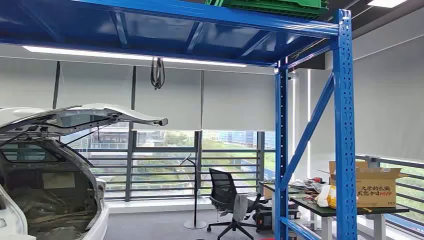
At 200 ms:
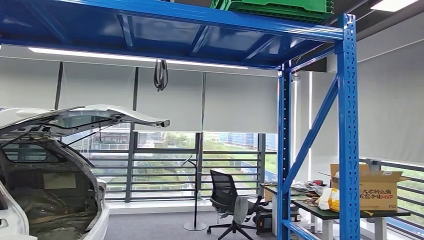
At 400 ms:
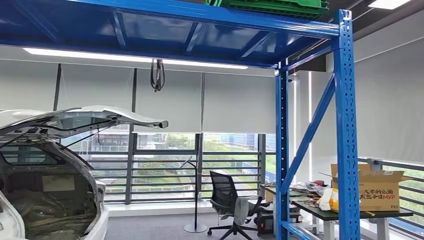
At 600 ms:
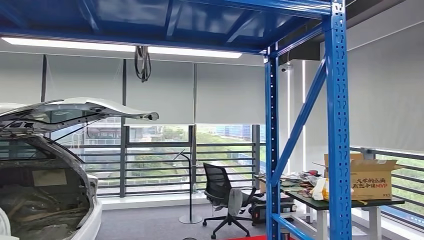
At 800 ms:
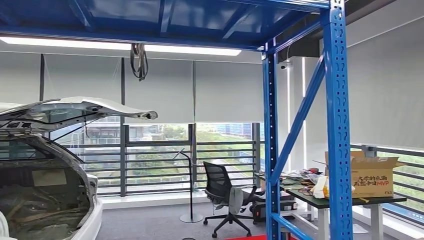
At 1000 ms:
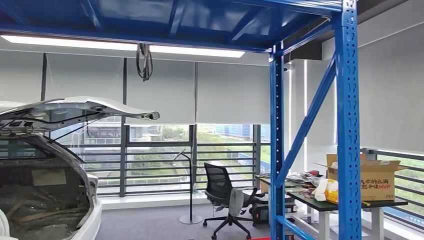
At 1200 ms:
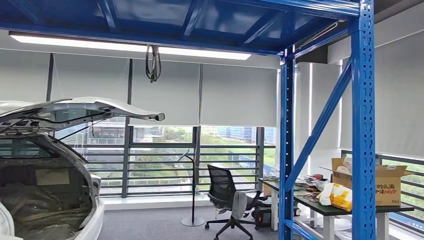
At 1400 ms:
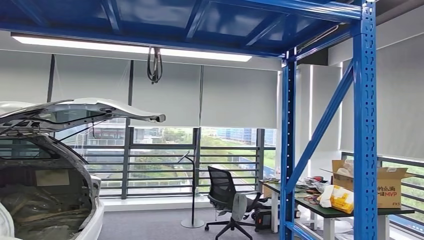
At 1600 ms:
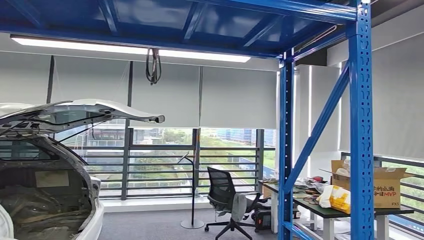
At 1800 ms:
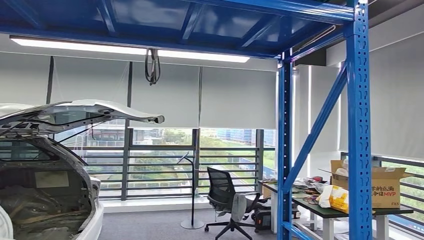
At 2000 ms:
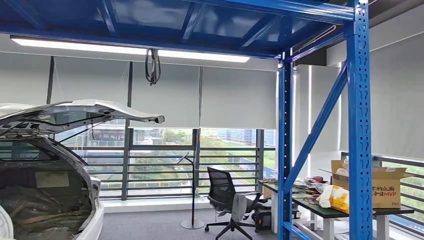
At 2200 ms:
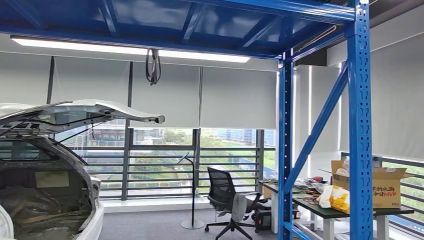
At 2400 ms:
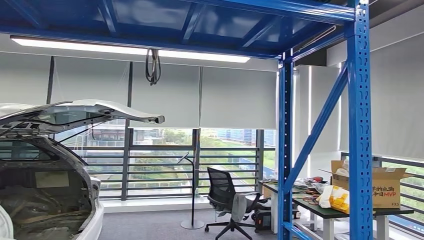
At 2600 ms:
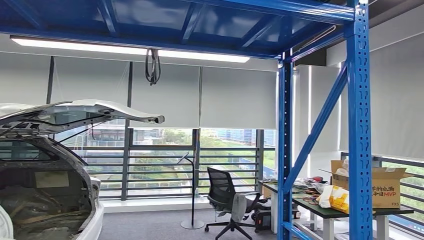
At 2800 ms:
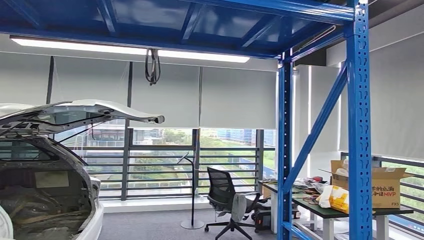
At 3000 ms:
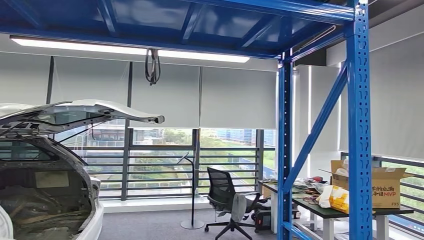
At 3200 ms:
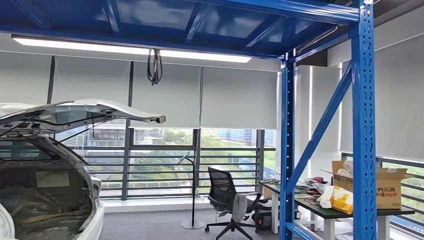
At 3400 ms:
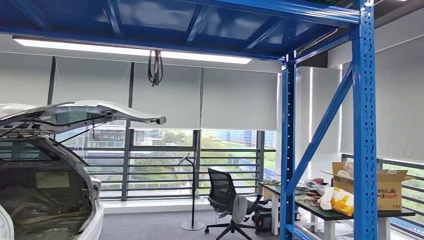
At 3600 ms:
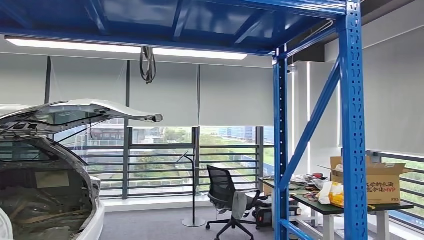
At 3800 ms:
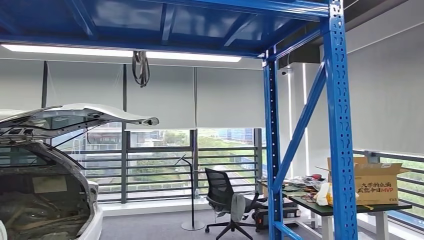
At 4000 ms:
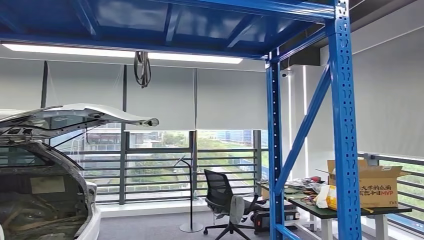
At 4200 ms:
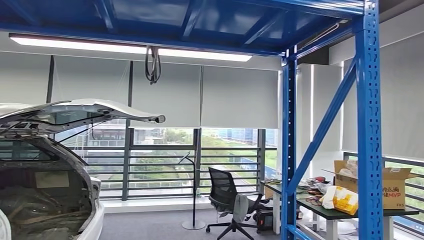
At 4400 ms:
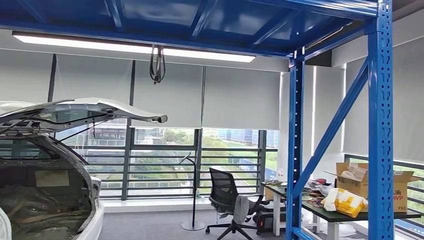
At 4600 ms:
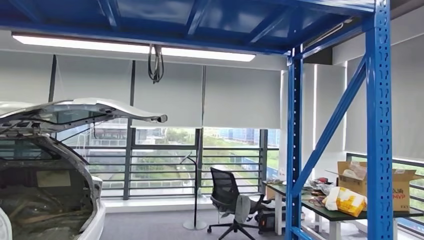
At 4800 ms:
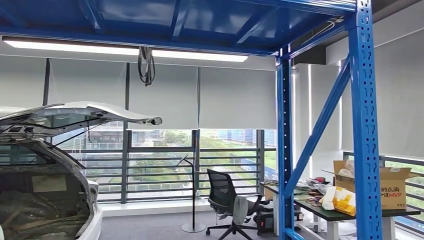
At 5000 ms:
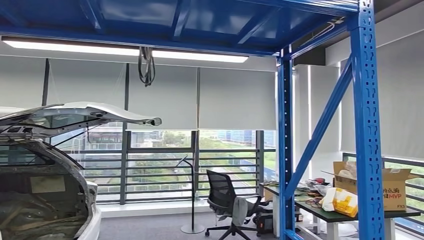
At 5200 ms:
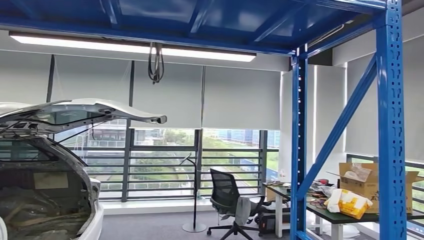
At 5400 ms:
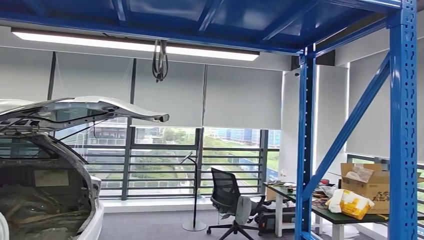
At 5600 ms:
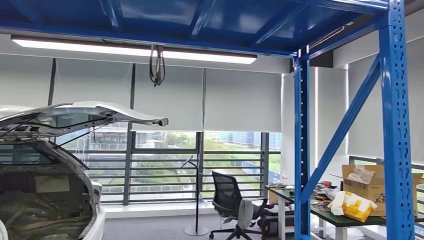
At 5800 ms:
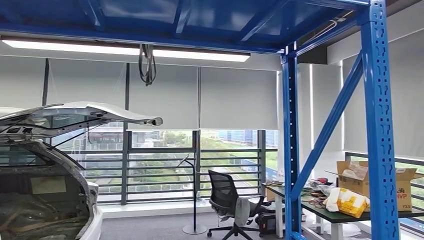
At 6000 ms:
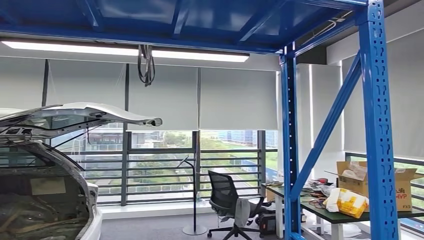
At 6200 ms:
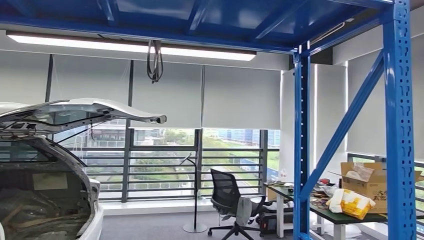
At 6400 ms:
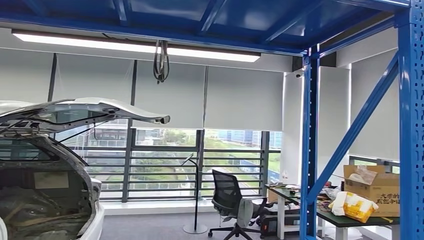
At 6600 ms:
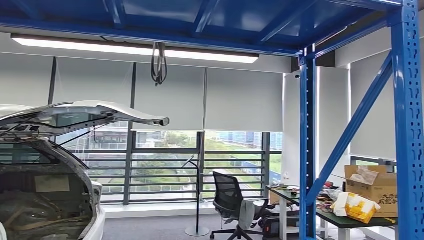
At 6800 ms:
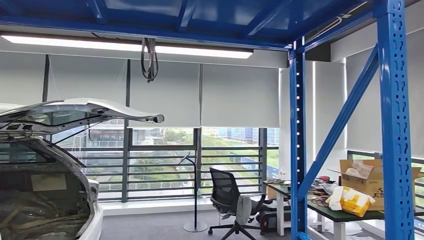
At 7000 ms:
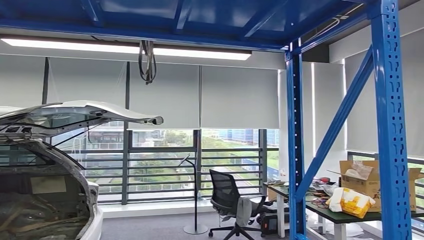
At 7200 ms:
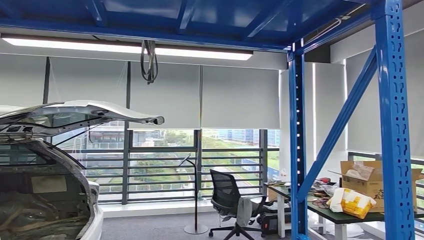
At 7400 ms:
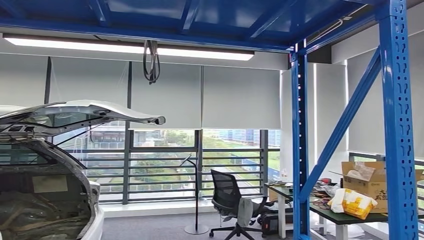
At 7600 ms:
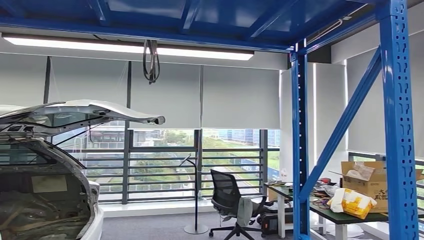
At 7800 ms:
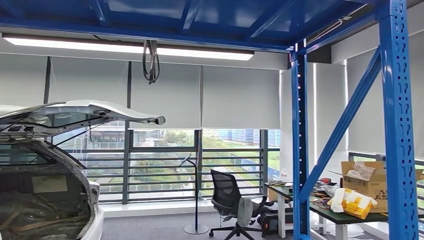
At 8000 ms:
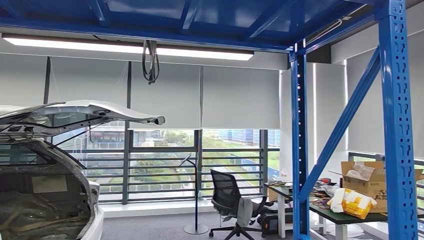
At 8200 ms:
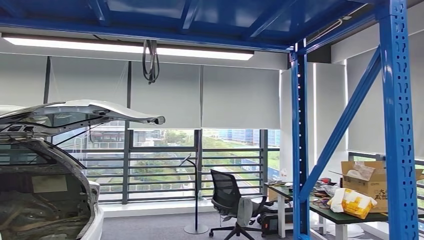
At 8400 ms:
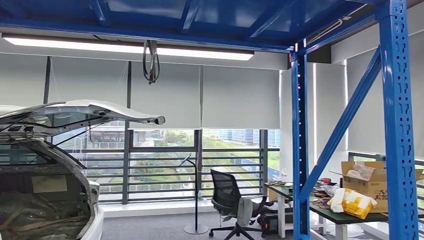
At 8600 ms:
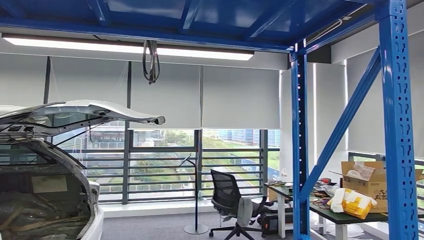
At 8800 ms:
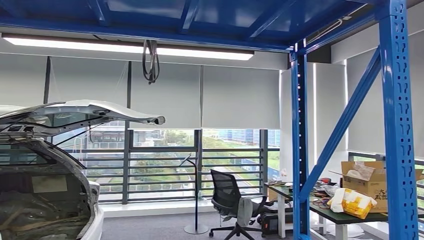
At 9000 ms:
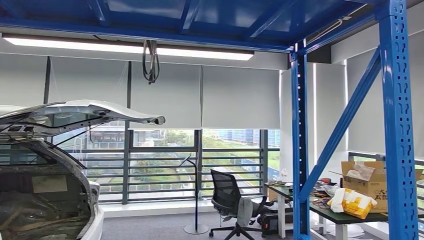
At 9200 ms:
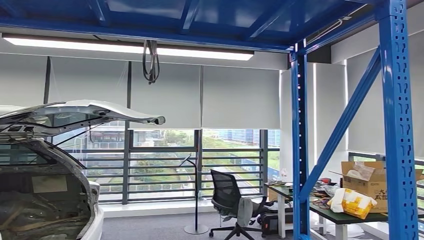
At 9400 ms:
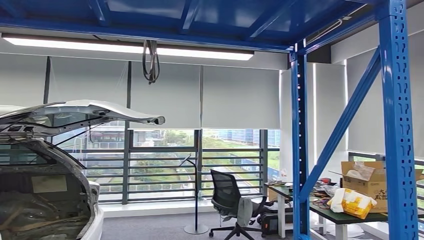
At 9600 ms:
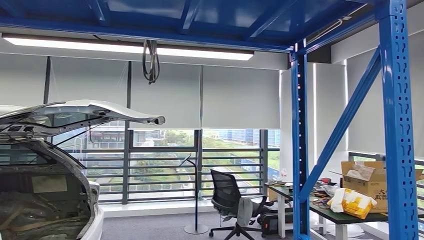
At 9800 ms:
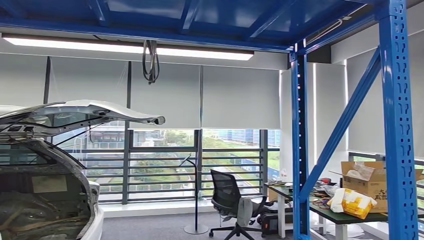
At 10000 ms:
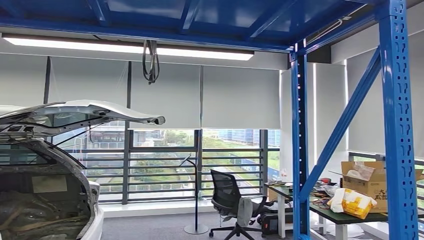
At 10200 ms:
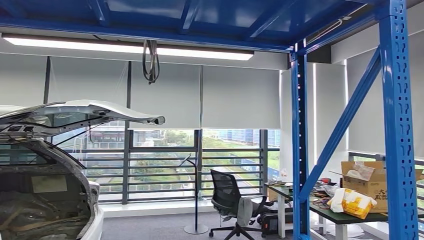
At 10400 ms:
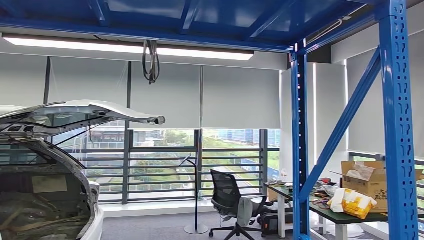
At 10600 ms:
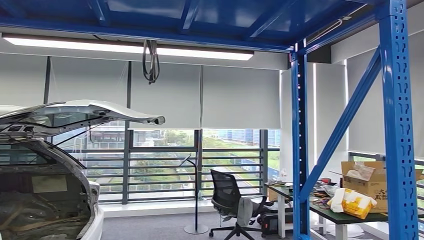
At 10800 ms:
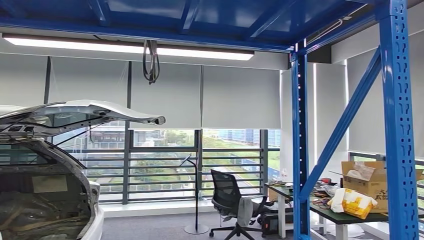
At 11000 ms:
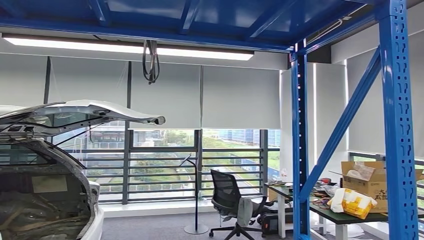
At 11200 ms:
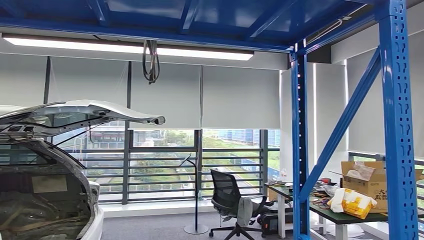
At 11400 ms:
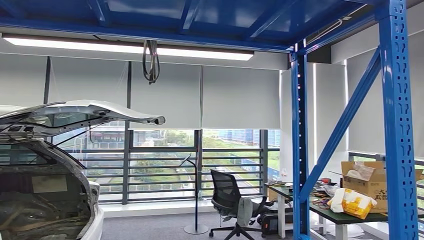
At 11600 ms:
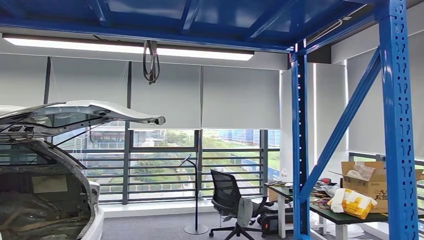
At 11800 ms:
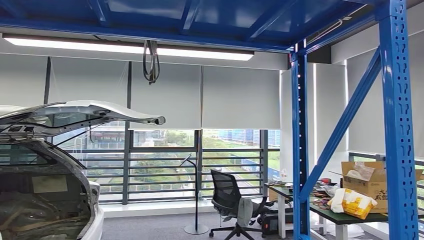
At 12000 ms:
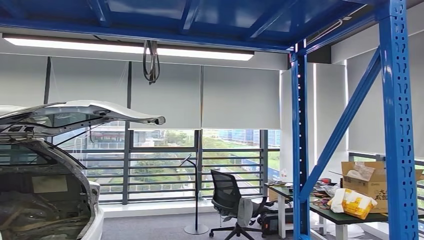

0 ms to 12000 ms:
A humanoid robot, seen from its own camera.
1600 ms to 3000 ms: There are only small adjustments of the hands.
7600 ms to 9000 ms: The two hands keep their place.

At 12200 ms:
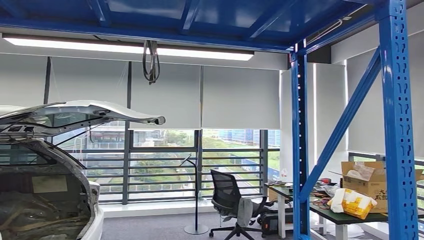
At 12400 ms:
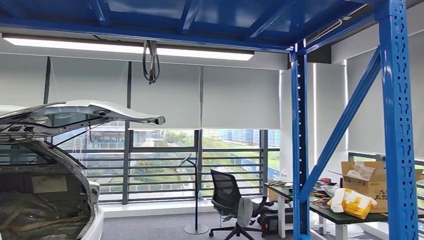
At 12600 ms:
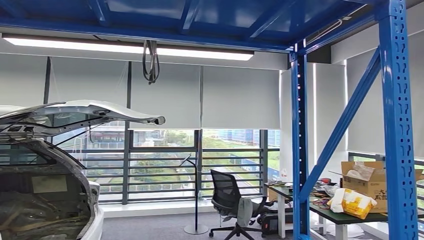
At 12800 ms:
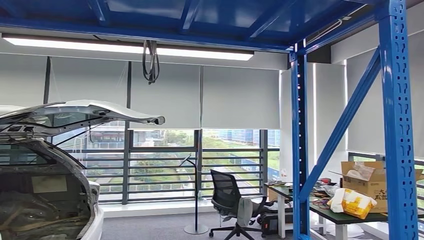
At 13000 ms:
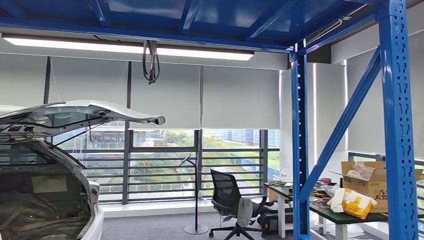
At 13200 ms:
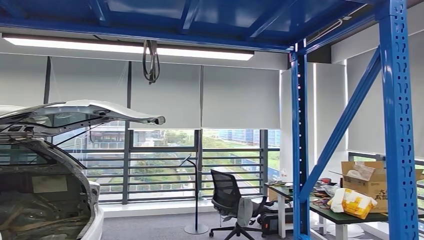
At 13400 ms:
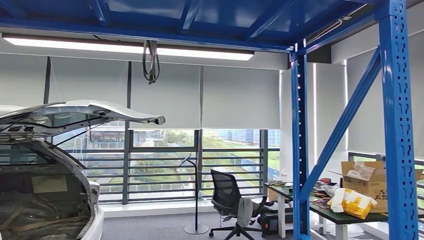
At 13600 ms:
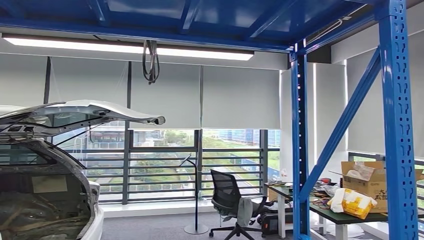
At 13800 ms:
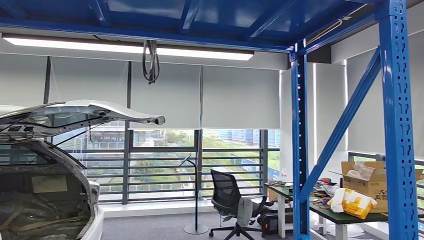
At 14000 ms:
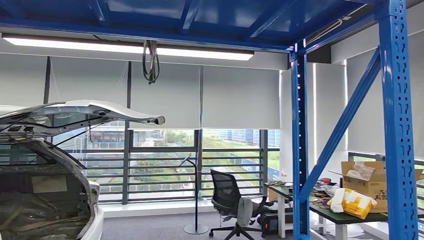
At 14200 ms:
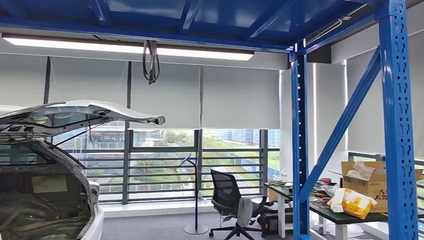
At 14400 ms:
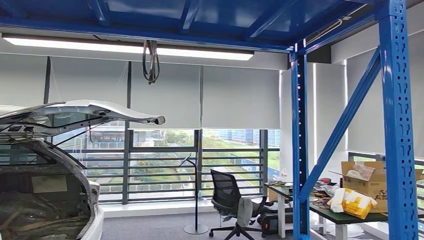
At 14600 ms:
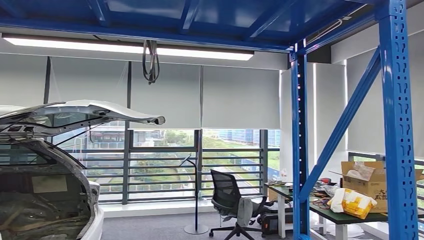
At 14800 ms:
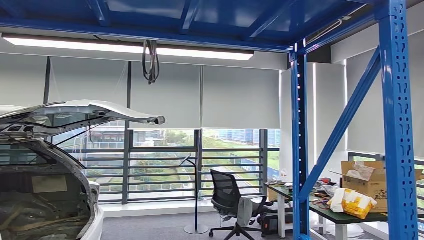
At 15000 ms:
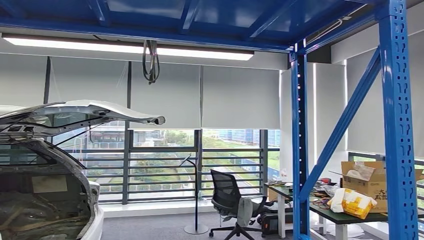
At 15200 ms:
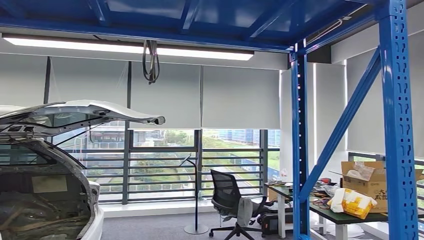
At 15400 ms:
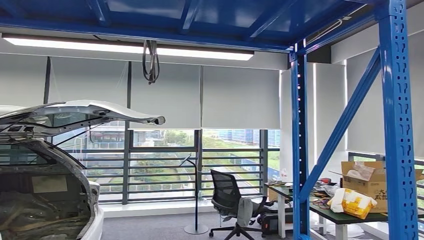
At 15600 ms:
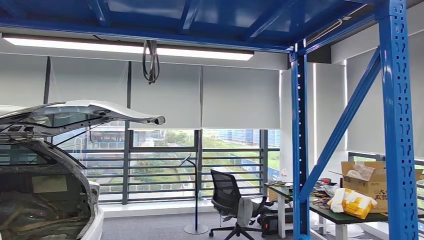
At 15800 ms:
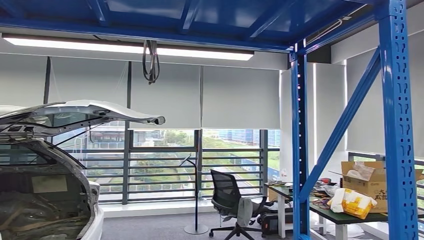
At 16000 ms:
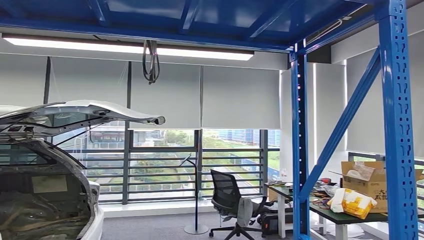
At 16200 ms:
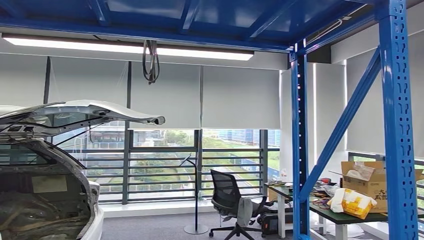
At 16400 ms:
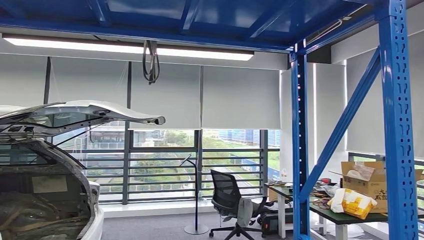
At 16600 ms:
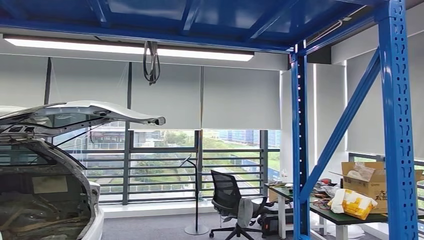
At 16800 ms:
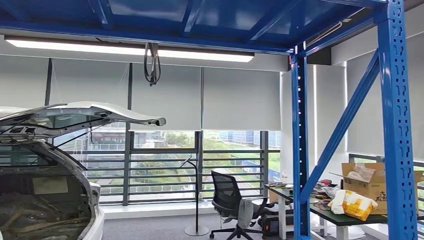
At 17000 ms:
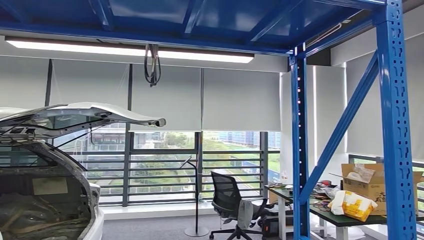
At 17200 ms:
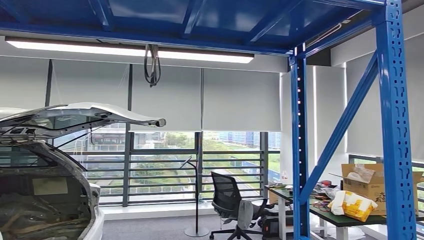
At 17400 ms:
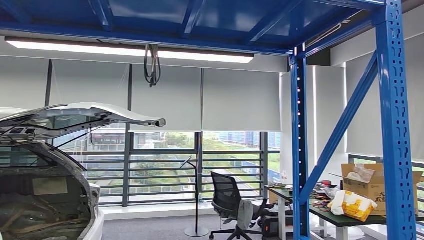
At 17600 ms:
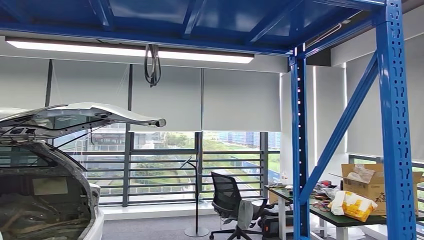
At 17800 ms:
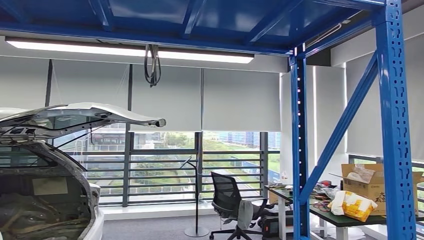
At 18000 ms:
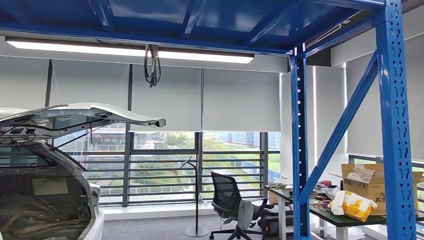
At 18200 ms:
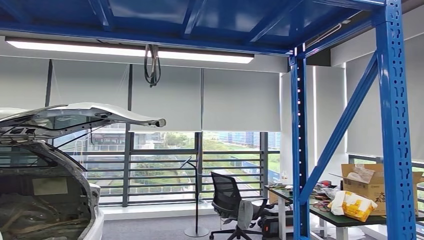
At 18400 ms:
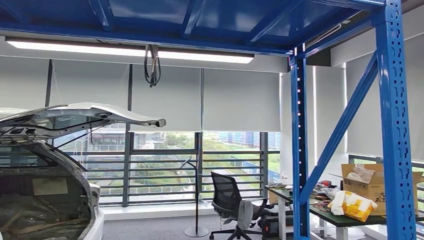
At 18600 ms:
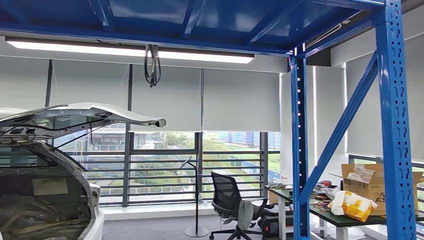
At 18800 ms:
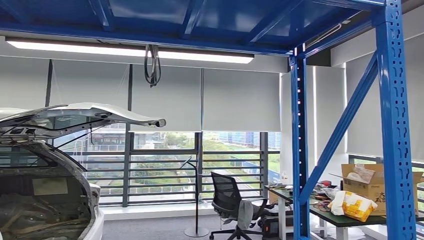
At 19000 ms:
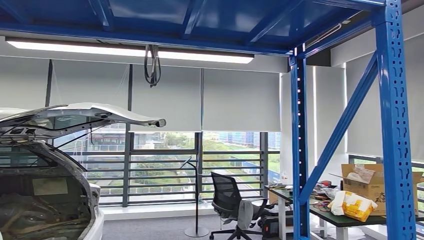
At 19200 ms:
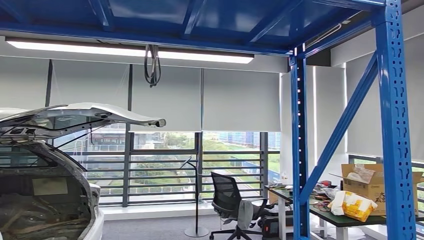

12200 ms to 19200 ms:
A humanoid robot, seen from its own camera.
Step, 12200 ms to 17400 ms: Pick up the small component from the shelf.
13600 ms to 16400 ms: Both hands stay put.
17800 ms to 19200 ms: Both hands stay about where they are.
